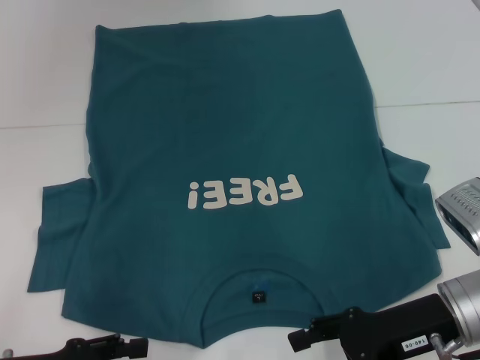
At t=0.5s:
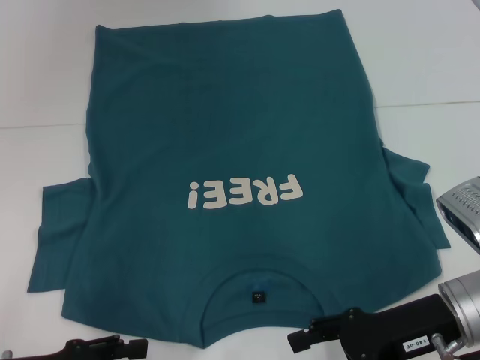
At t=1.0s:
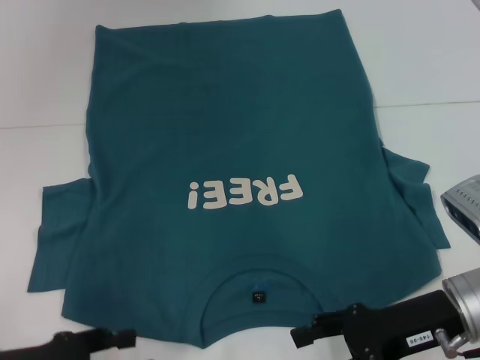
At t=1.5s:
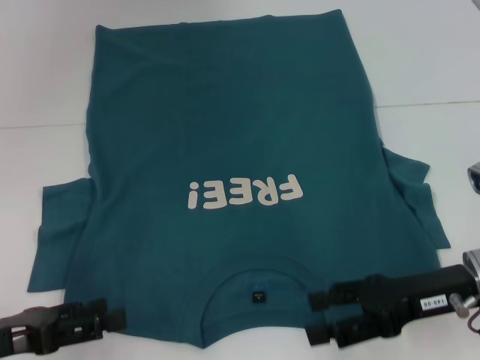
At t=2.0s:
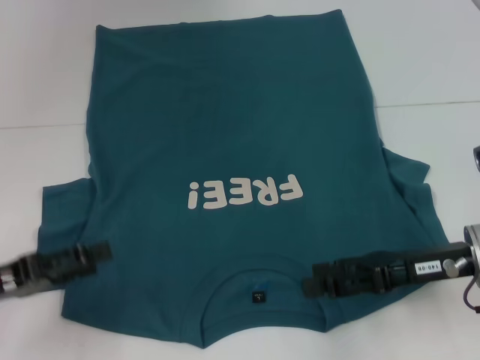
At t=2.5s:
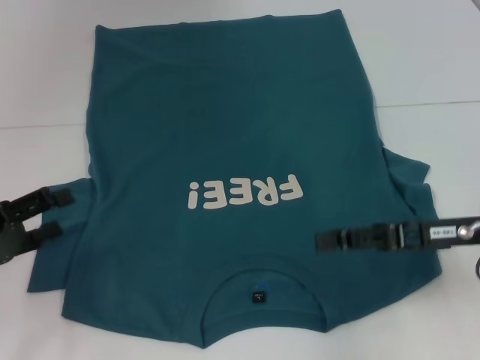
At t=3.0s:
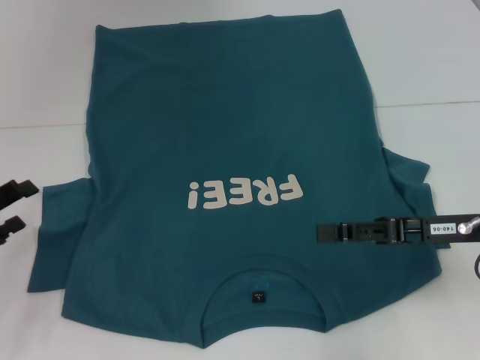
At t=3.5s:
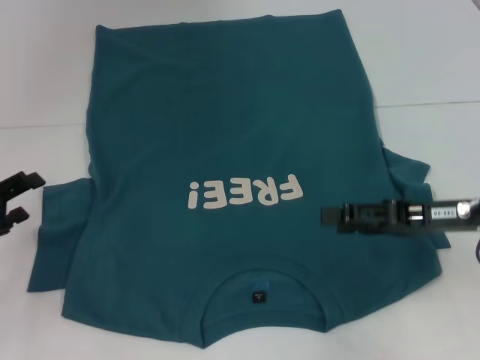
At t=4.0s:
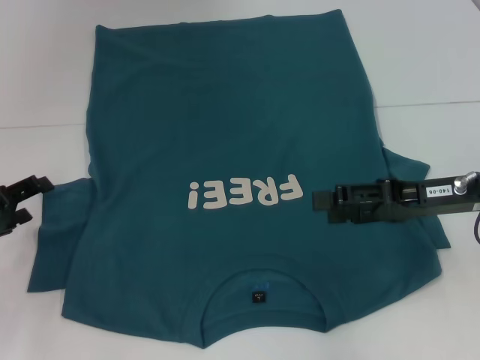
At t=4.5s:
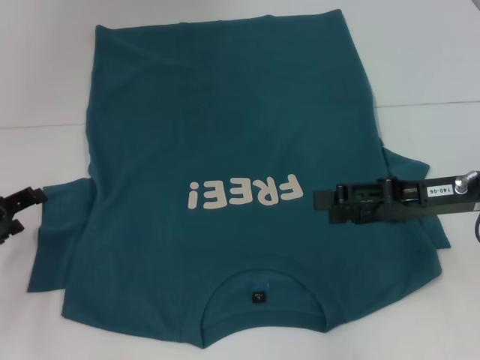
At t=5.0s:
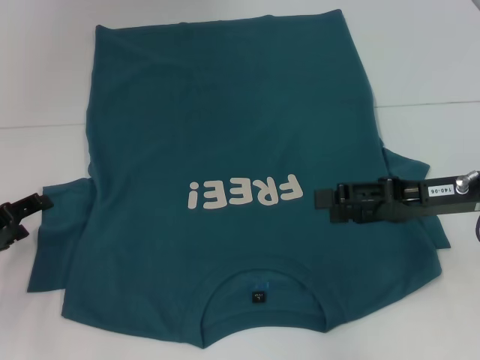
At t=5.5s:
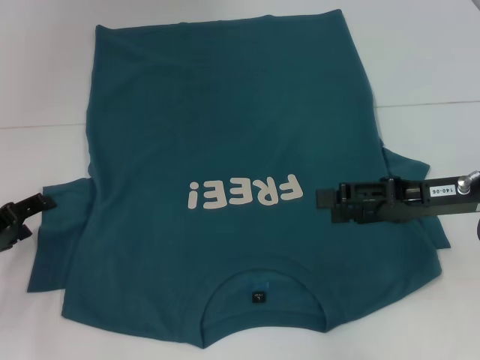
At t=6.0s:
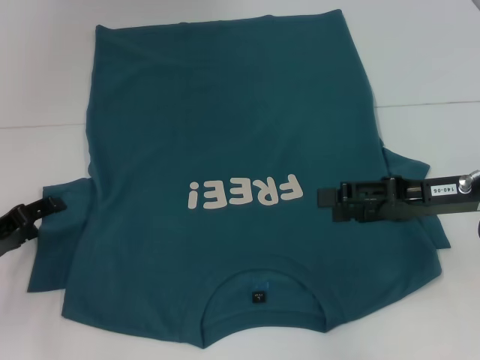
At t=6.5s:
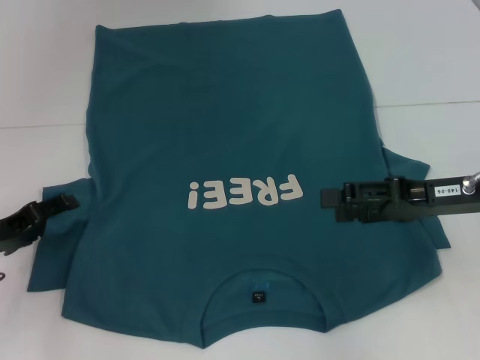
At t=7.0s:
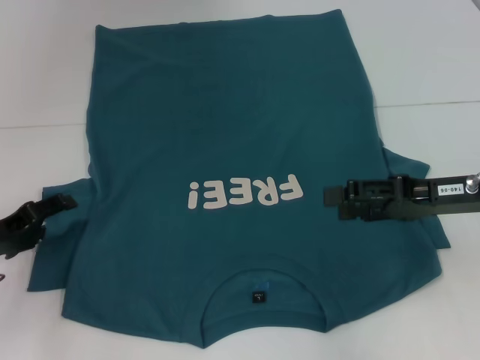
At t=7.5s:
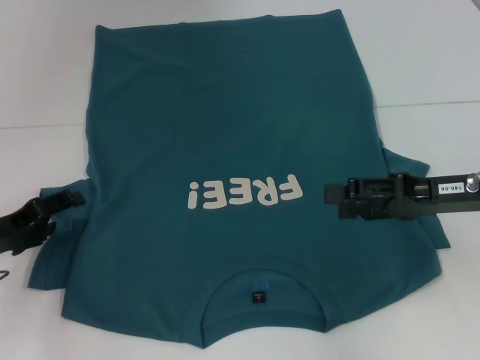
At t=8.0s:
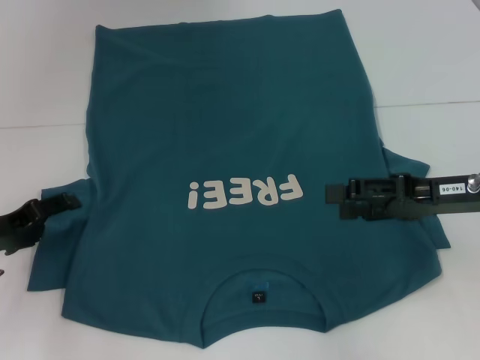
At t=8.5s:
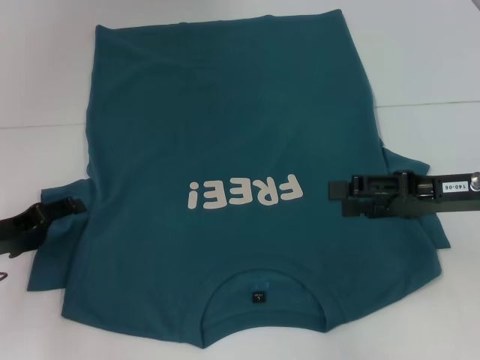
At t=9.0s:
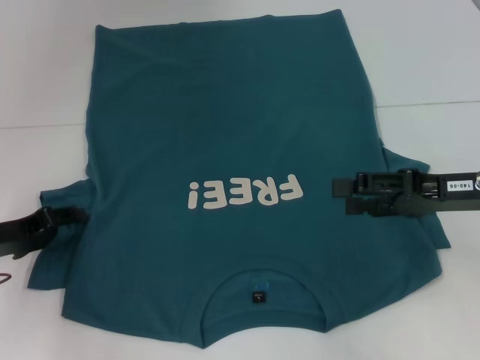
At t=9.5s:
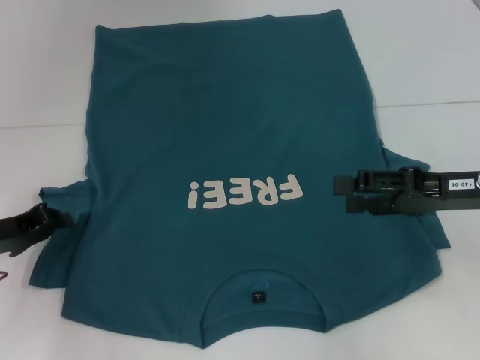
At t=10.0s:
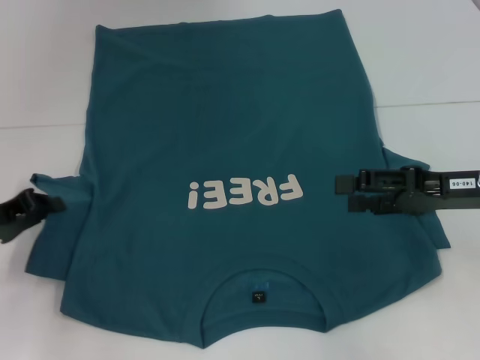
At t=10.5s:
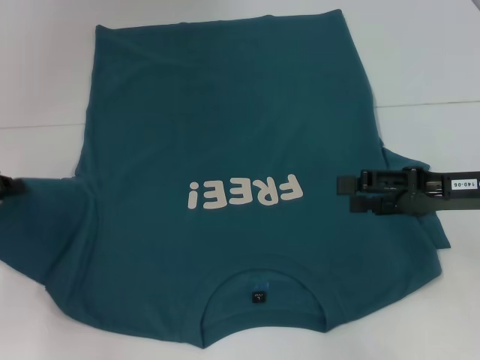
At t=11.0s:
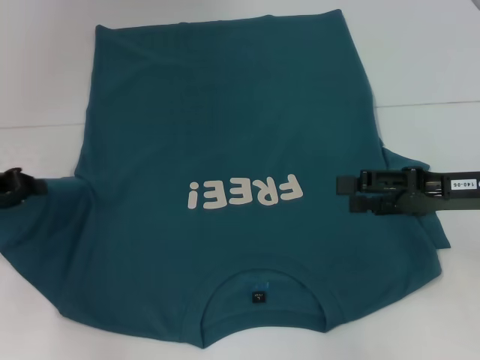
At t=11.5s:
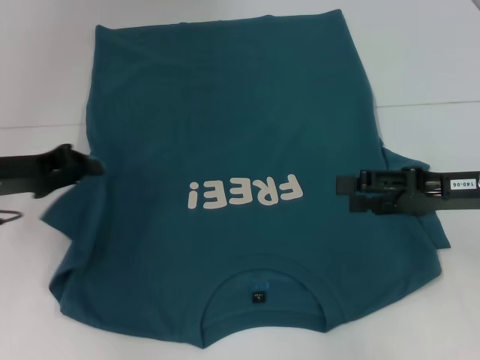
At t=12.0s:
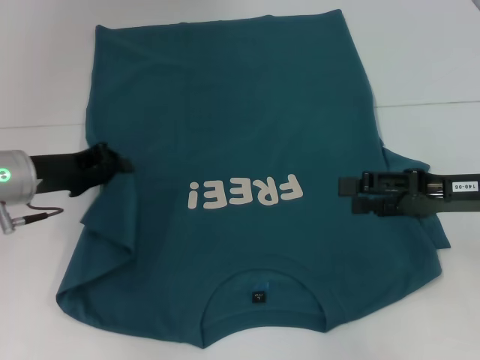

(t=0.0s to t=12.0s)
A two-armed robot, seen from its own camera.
t=0.0s - t=2.0s: The left gripper changes place by some 5 cm.
t=2.0s - t=4.0s: The left gripper shifts about 5 cm forward. Meanwhile the right gripper changes place by roughly 5 cm.
t=4.0s - t=8.0s: The grippers make only small movements.
t=8.0s - t=10.0s: The left gripper closes up.
t=10.0s - t=12.0s: The left gripper shifts some 10 cm to the right and forward.

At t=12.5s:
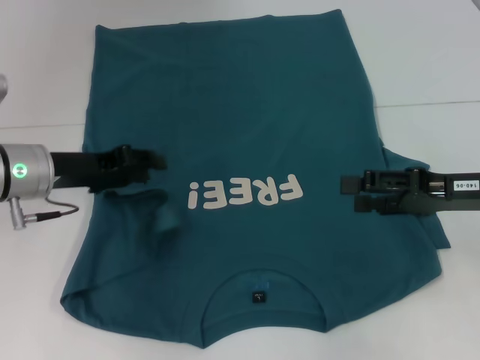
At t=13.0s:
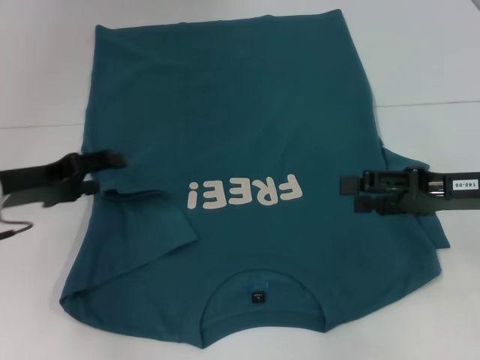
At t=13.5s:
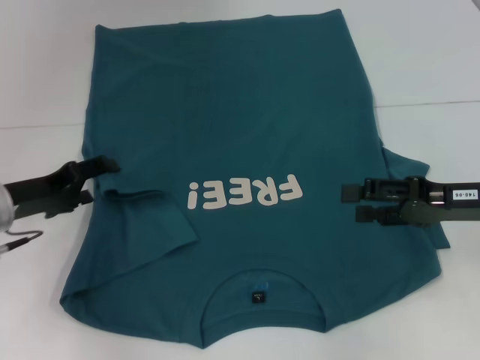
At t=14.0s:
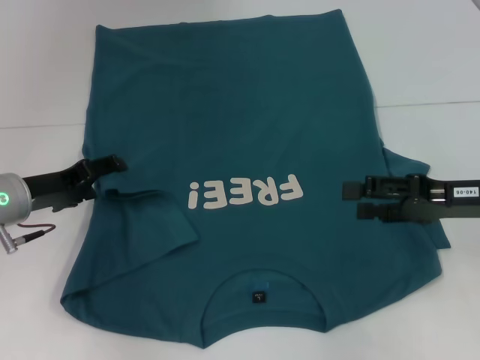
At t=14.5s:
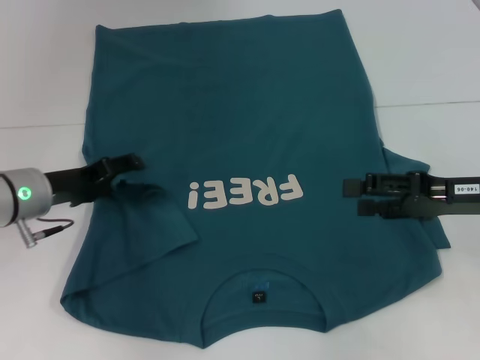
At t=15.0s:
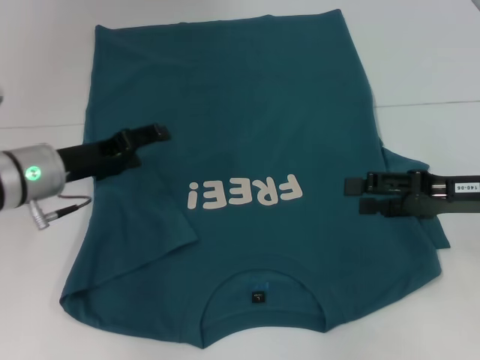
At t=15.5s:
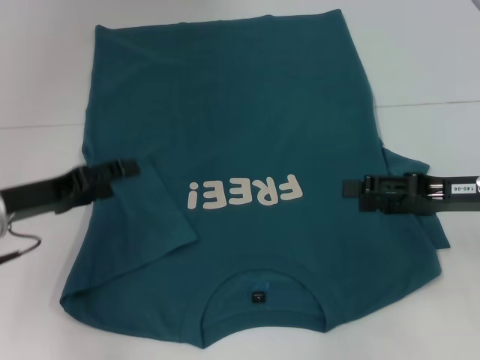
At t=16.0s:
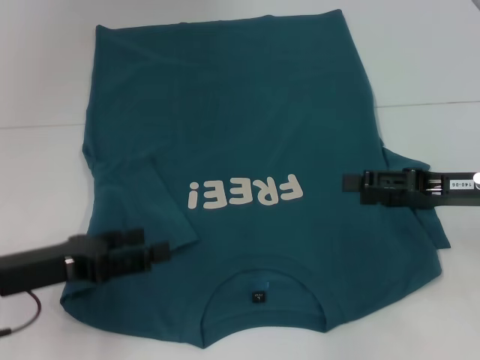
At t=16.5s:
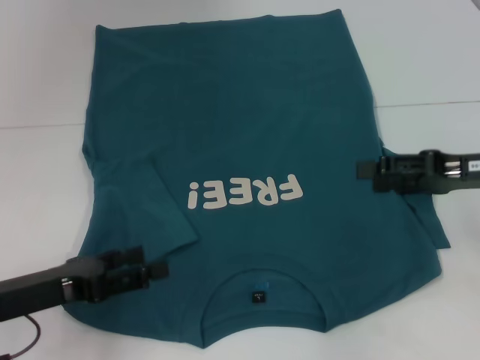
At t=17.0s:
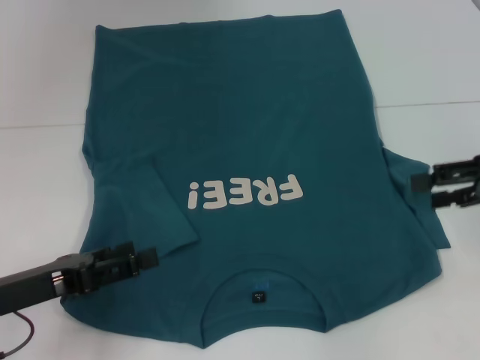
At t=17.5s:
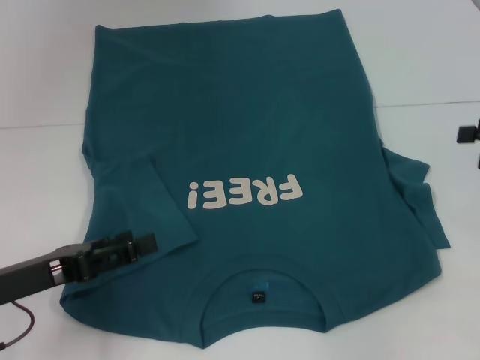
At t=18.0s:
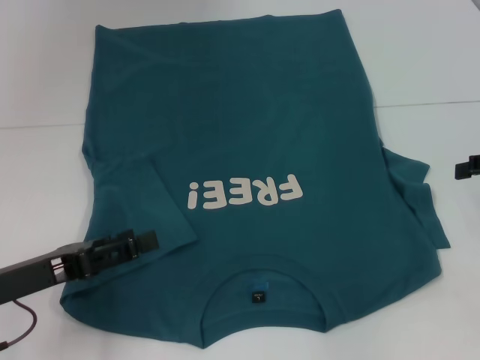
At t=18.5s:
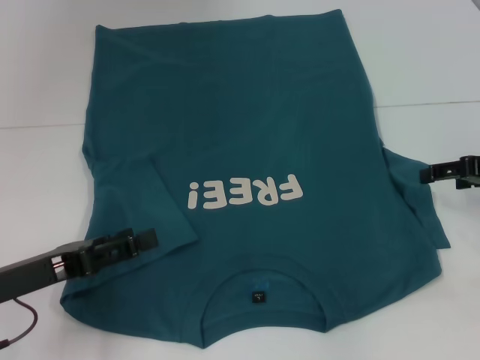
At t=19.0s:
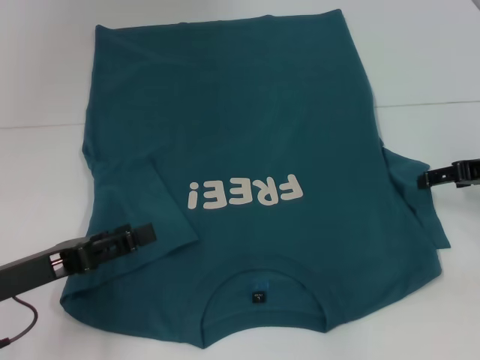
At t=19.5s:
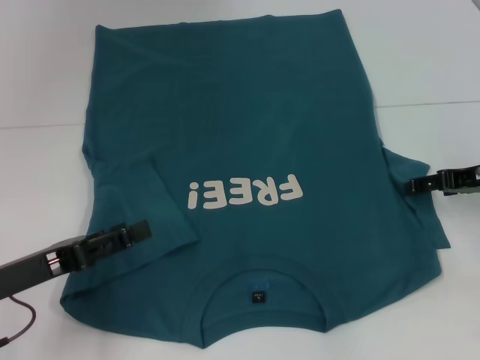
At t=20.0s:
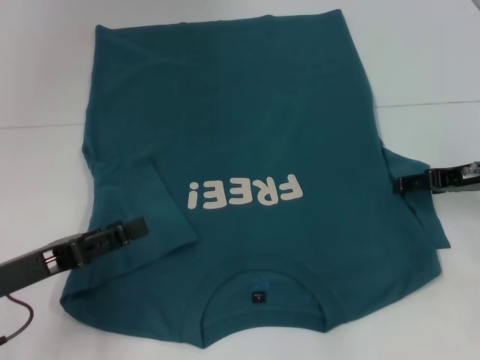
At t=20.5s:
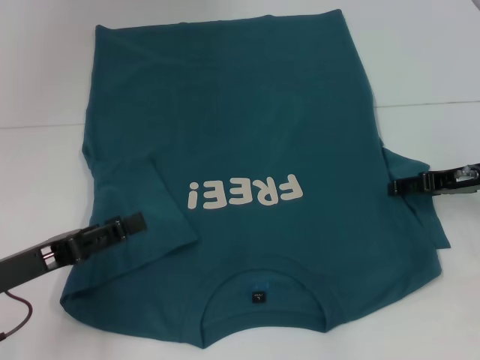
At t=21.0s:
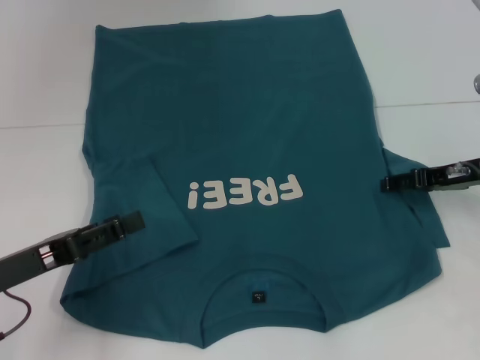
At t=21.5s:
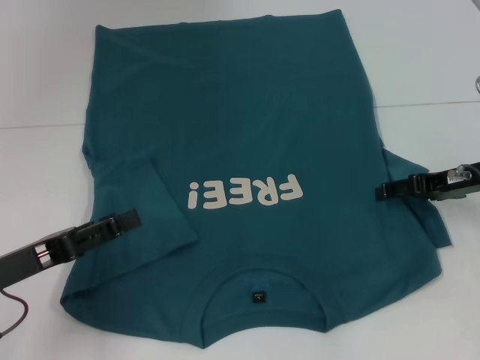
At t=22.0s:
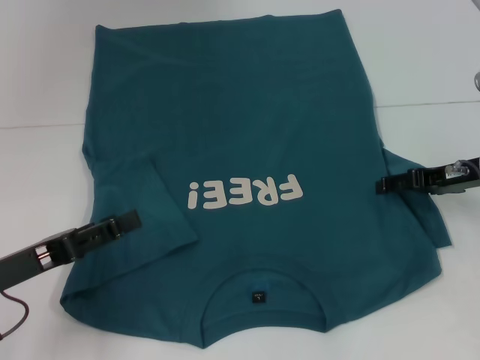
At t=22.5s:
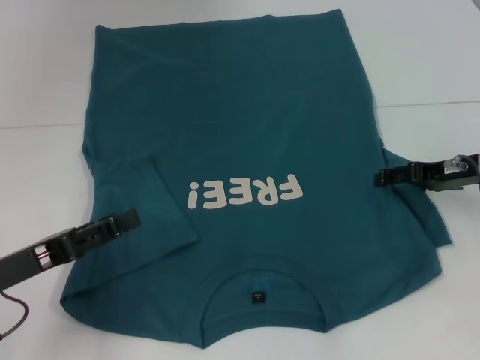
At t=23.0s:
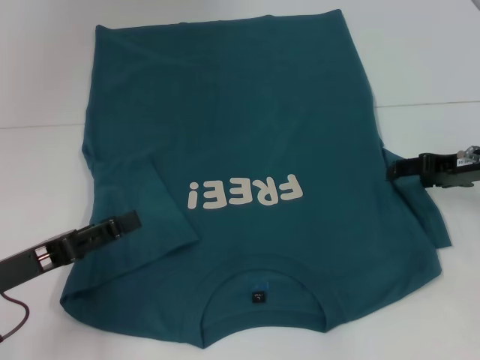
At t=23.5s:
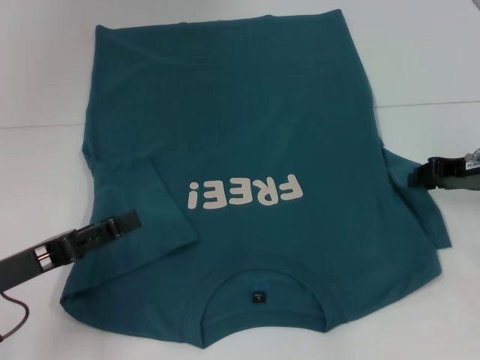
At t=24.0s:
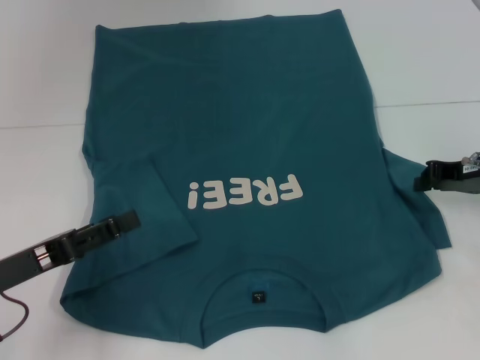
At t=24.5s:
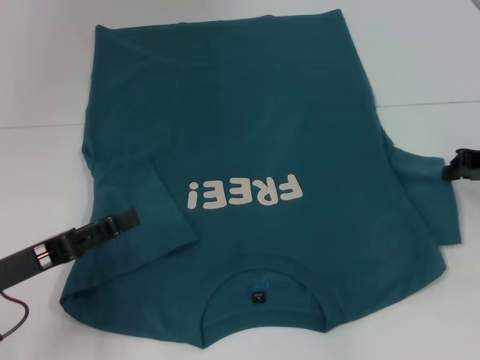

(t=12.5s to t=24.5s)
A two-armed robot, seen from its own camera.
Step, t=12.5s - t=15.0s: Fold the bottom left sleeve with your left hand.
t=12.5s - t=14.5s: The left gripper opens its fingers.
t=14.5s - t=16.5s: The left gripper is displaced backward by roughly 15 cm.
t=18.5s - t=20.5s: The right gripper shifts by some 5 cm.
t=20.5s - t=22.5s: The grippers move only a little.
t=22.5s - t=24.5s: The right gripper closes up.

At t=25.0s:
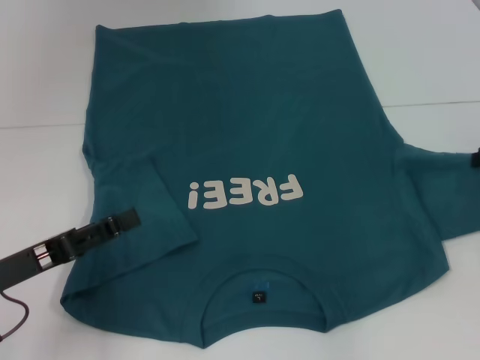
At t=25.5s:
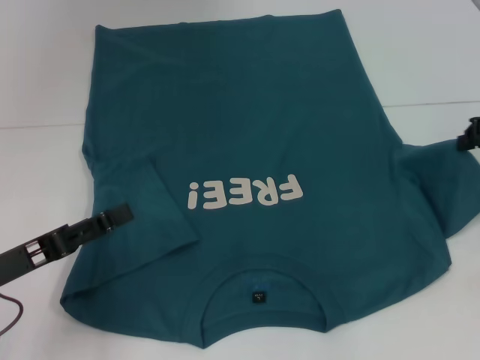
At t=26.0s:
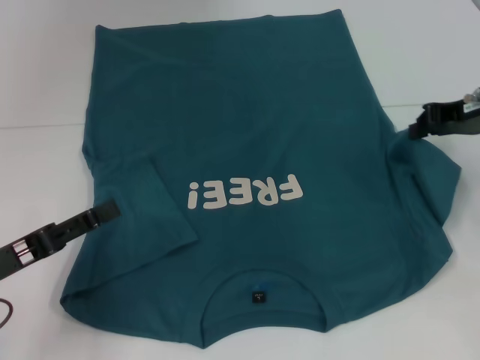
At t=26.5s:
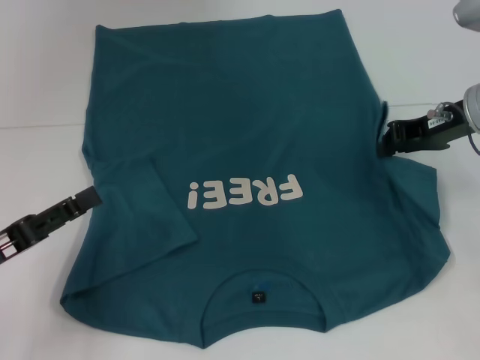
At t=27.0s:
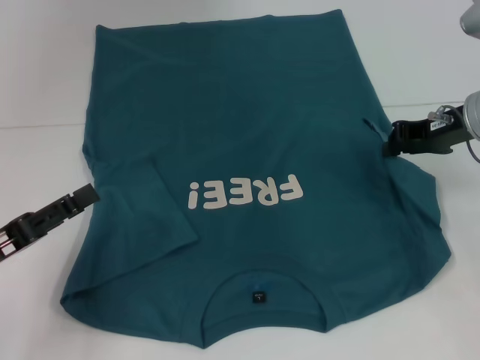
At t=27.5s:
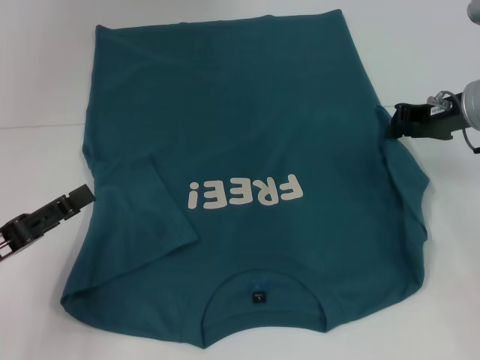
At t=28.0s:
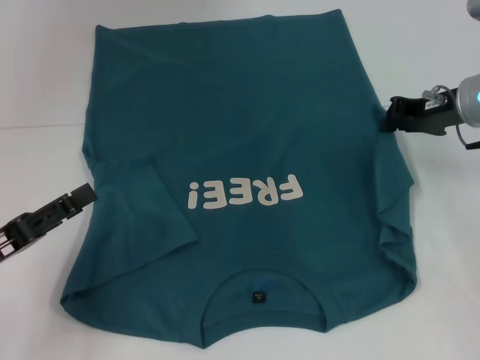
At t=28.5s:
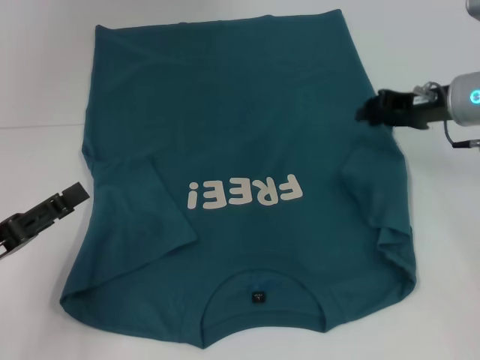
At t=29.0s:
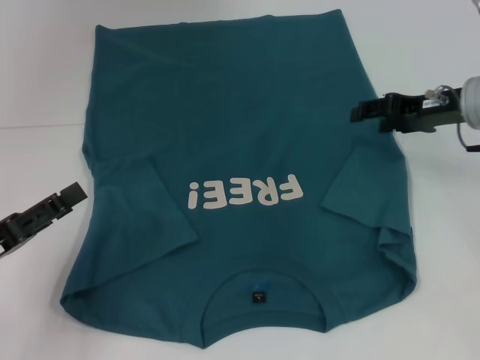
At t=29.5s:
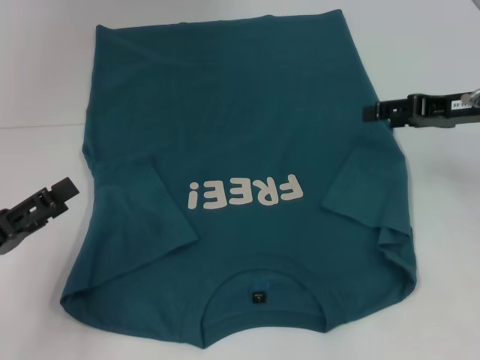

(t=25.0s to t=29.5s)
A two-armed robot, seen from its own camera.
Step, t=25.0s - t=29.0s: Fold the bottom right sleeve to the right.
t=25.0s - t=27.0s: The right gripper heads to the left, covering some 10 cm.
t=27.0s - t=29.5s: The right gripper opens up.
